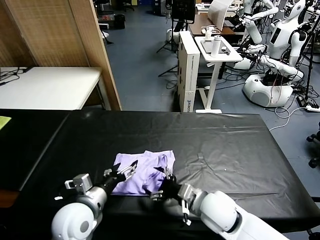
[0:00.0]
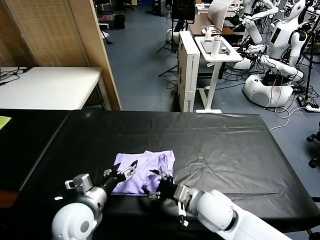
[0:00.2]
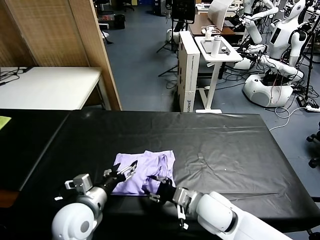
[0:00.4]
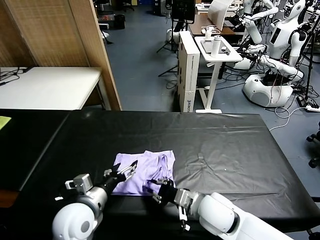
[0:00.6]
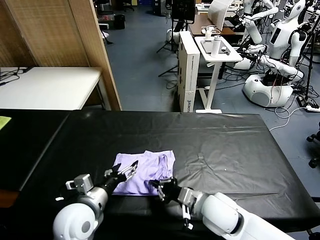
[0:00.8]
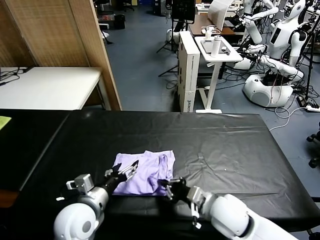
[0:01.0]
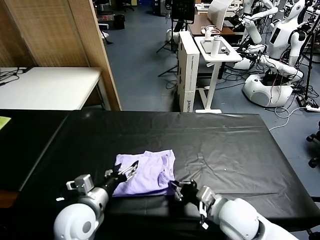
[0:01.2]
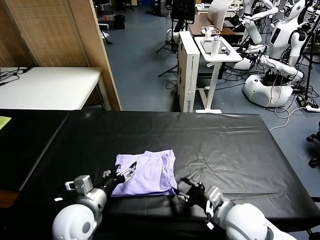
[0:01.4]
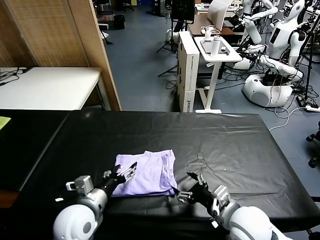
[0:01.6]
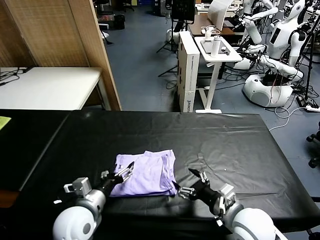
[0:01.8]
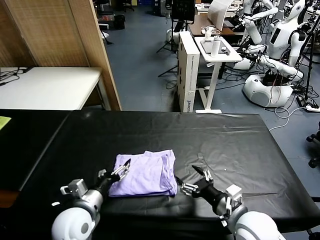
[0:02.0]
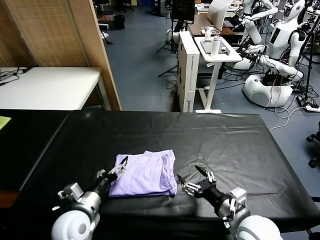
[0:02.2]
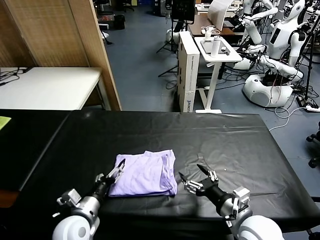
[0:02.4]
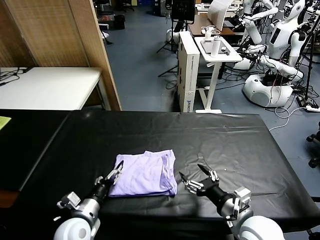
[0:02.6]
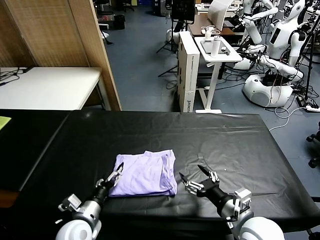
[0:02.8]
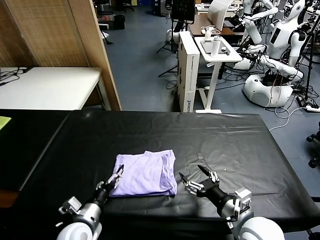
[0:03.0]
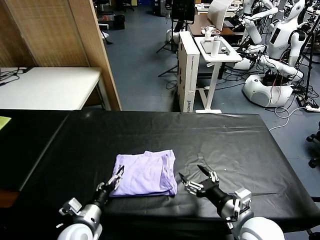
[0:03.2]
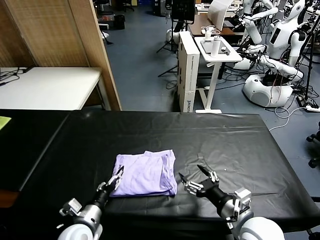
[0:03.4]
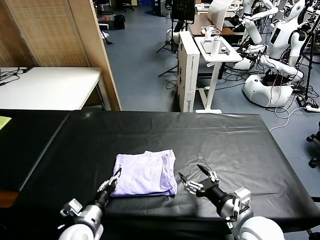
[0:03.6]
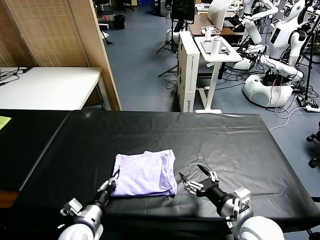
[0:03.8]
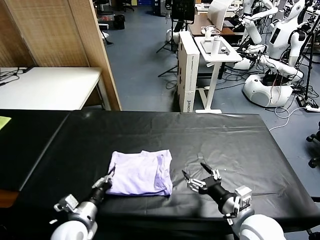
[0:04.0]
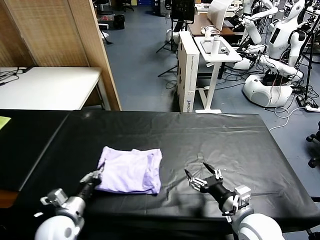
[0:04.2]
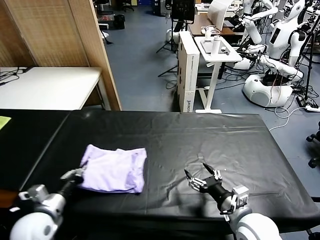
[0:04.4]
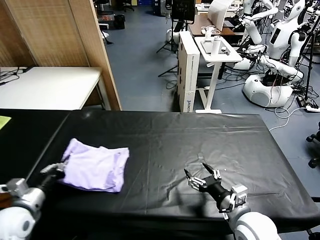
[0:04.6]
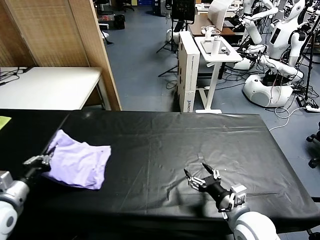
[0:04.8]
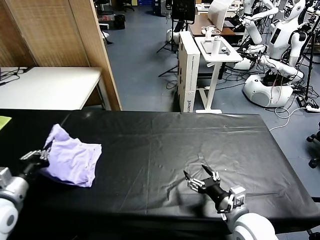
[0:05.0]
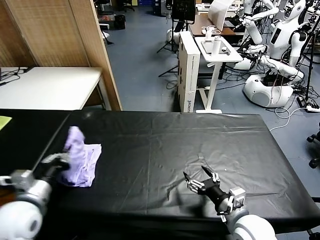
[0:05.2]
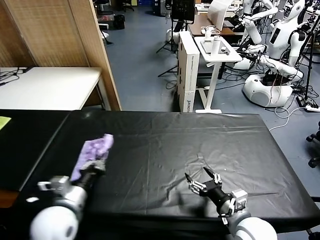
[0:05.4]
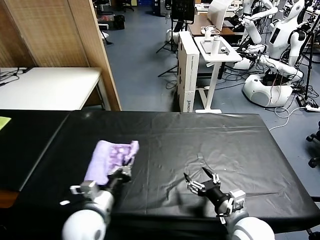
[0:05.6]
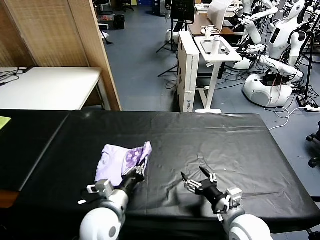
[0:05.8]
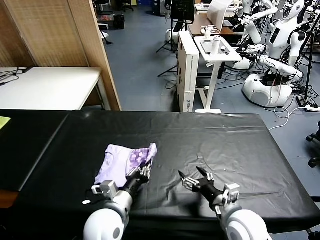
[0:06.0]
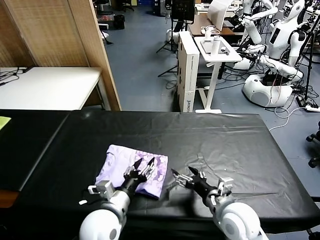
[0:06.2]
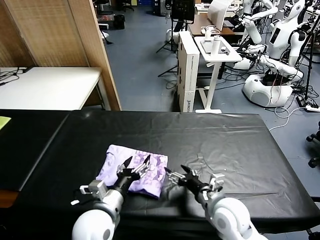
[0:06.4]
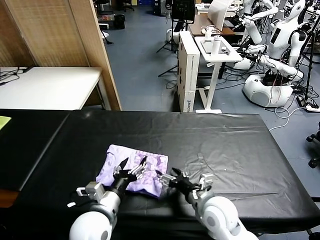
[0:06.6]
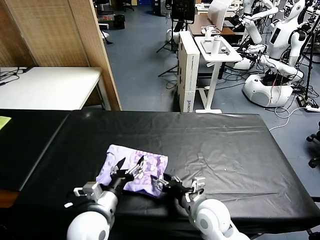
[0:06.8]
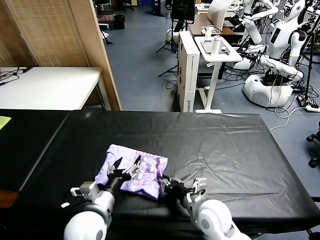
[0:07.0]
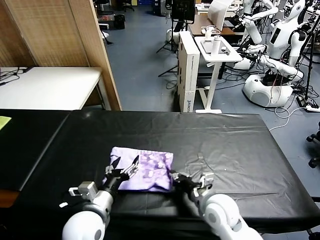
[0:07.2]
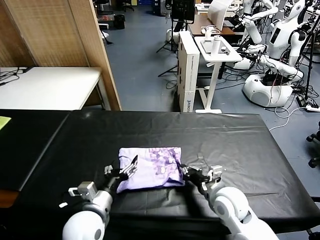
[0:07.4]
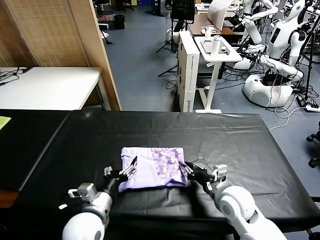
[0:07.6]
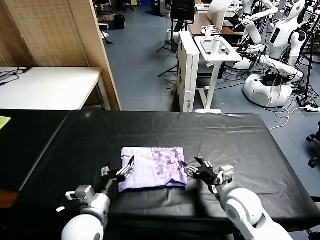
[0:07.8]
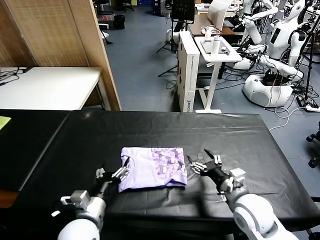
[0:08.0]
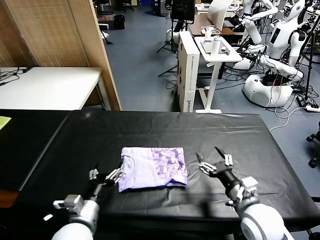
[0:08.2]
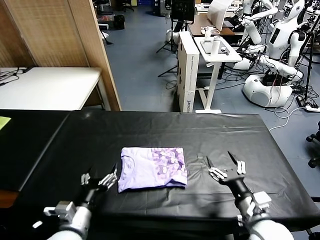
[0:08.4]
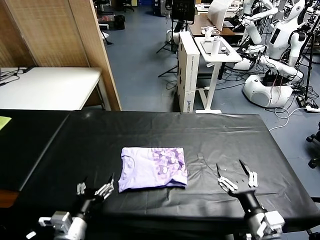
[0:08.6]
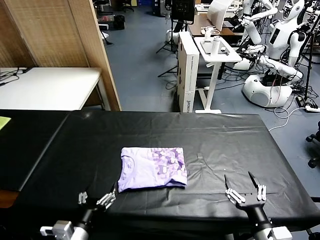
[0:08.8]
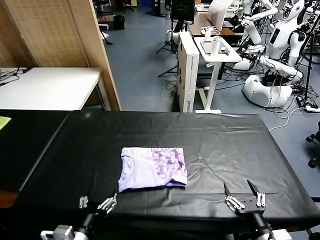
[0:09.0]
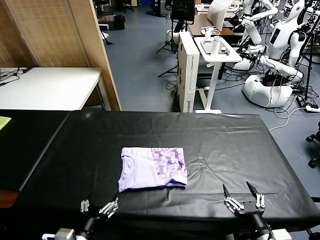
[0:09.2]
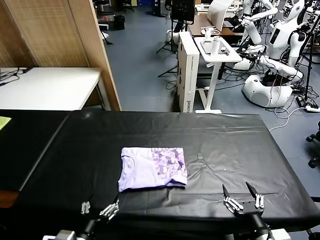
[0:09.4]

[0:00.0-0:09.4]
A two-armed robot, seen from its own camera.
Task of the whole recording: fold and organize the clothes.
Step, 0:00.0 to 0:06.2: Flip the folded clothes over with left gripper.
Step, 0:06.4 to 0:07.8: Drag the clothes to the center of the table.
0:00.0 to 0:01.6: The right gripper goes roughly 5 cm to the right, and closes up.
0:01.6 to 0:03.2: The left gripper is displaced downward by about 10 cm. Meanwhile the right gripper opens.
0:03.2 to 0:04.8: The left gripper shifts approximately 20 cm to the left and upward, and closes.
0:04.8 to 0:06.2: The left gripper travels to the right by roughly 25 cm.
0:06.2 to 0:07.8: The left gripper opens its fingers; the right gripper moves roughly 5 cm to the left and comes back, and closes its fingers.
0:07.8 to 0:09.4: The left gripper heads backward, covering some 10 cm. The right gripper heads backward, covering about 20 cm, and opens its fingers.
